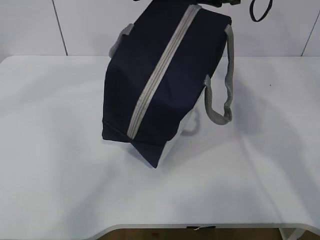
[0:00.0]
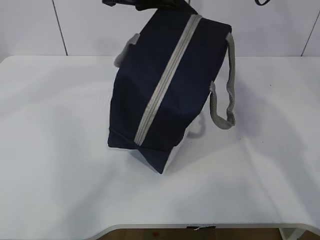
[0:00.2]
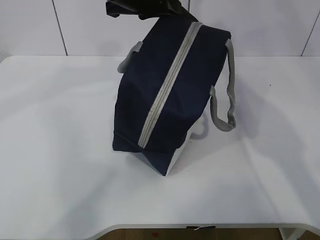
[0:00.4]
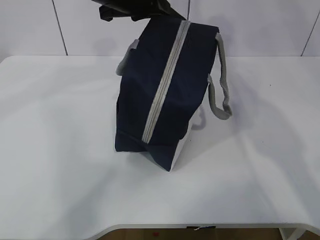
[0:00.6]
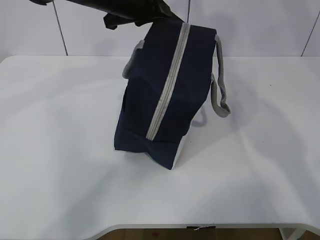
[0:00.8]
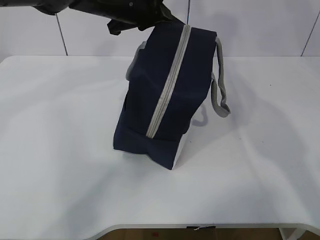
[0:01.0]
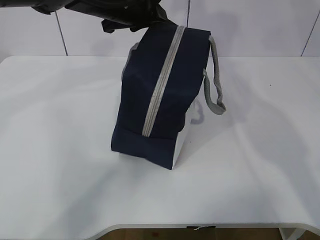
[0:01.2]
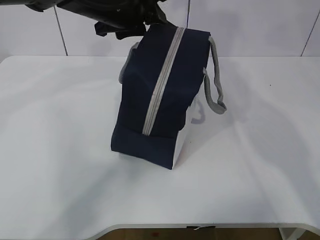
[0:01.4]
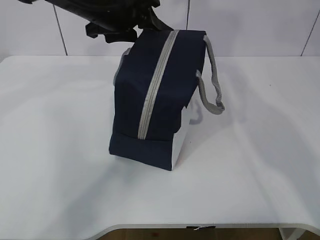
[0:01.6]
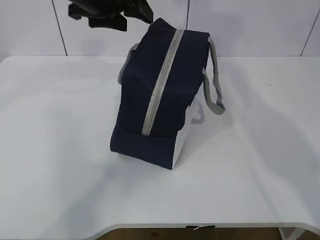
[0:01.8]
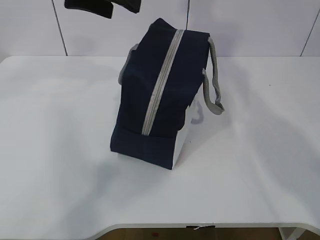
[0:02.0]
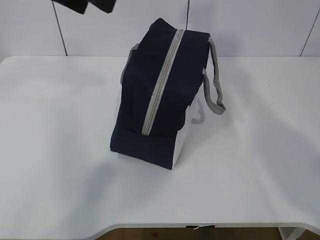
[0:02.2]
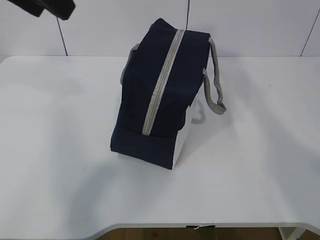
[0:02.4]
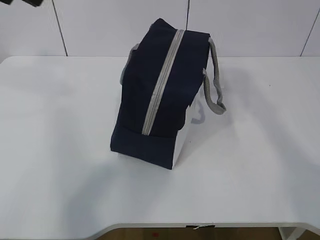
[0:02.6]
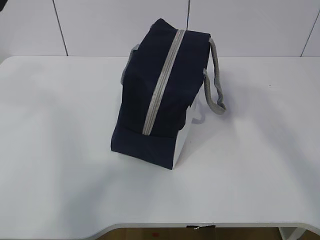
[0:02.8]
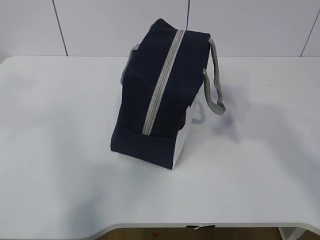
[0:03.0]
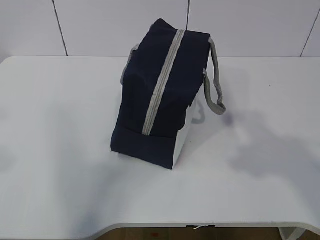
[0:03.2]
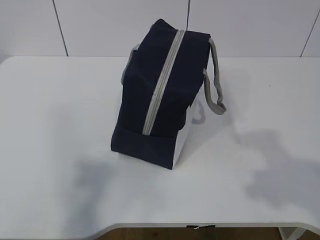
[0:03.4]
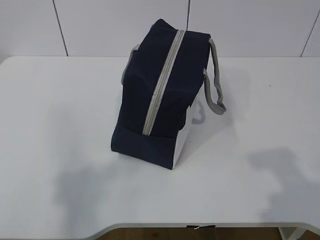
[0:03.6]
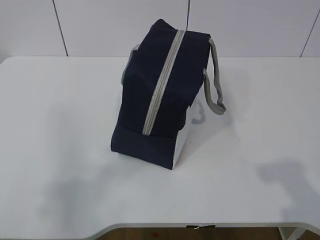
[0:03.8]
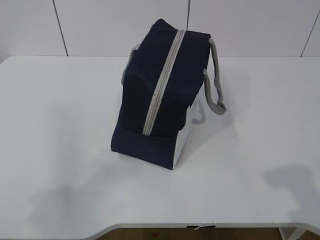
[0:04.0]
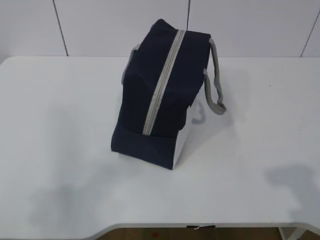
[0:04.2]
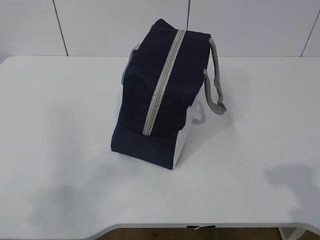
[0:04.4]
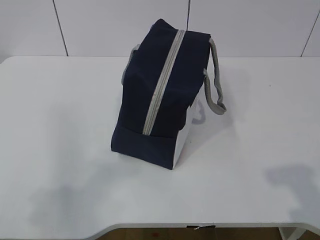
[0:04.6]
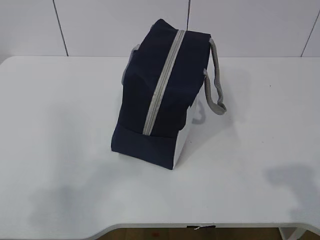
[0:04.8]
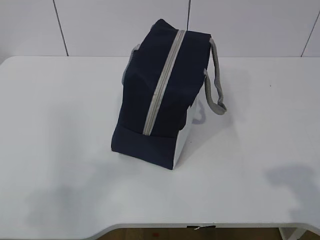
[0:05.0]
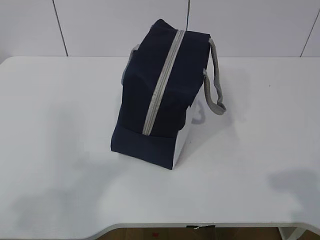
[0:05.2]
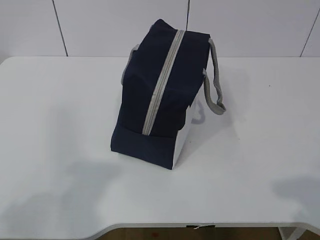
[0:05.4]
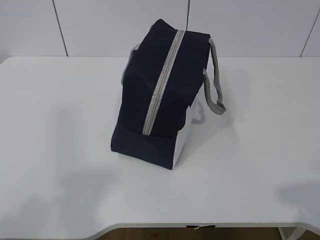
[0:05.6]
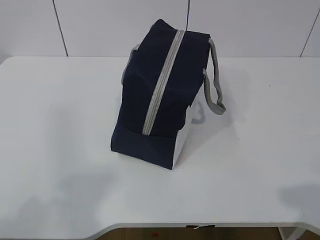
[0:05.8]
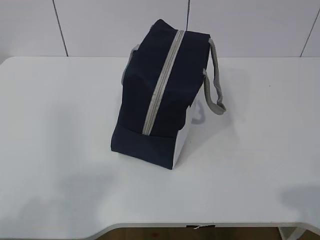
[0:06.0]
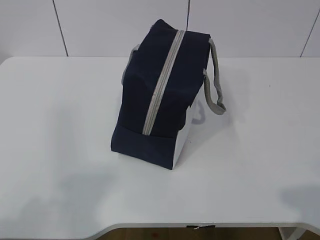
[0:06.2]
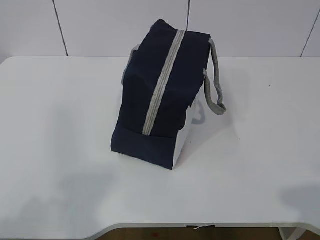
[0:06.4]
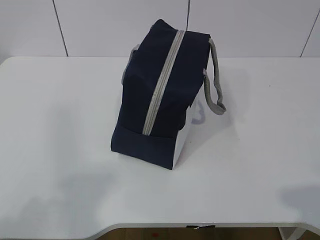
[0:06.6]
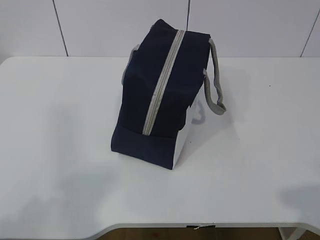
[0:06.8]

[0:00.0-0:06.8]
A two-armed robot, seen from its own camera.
0:00.0 to 0:01.4: The right gripper is displaced upward and backward by about 15 cm, and opens its fingers. The left gripper is displaced downward and forward by some 10 cm, and opens.
0:01.4 to 0:02.8: The right gripper shifts about 25 cm backward. Meanwhile the left gripper goes approximately 30 cm backward, upward and to the left.
0:02.8 to 0:04.0: The right gripper heads downward and backward, covering roughly 25 cm. Meanwhile the left gripper goes roughly 25 cm downward, backward and to the left.
